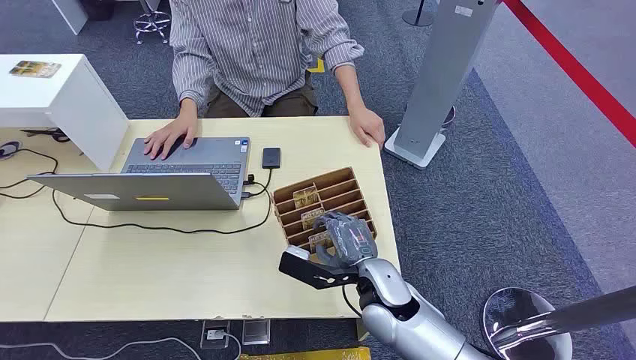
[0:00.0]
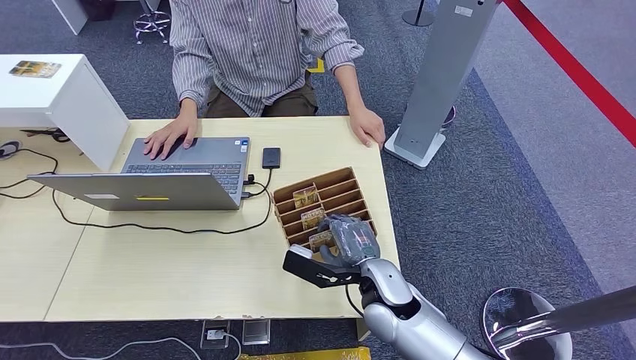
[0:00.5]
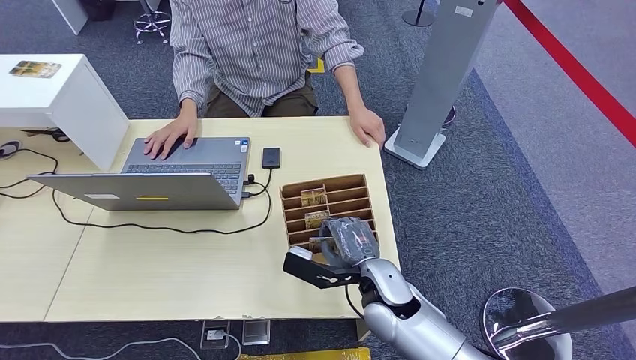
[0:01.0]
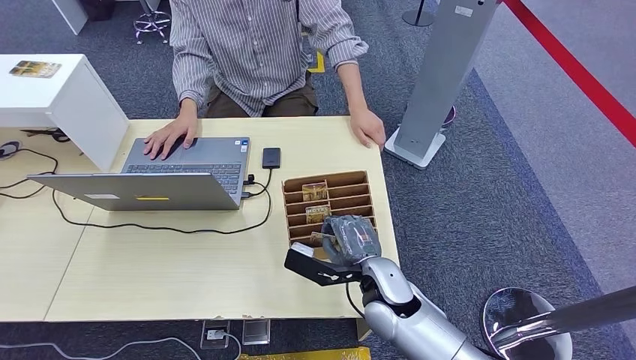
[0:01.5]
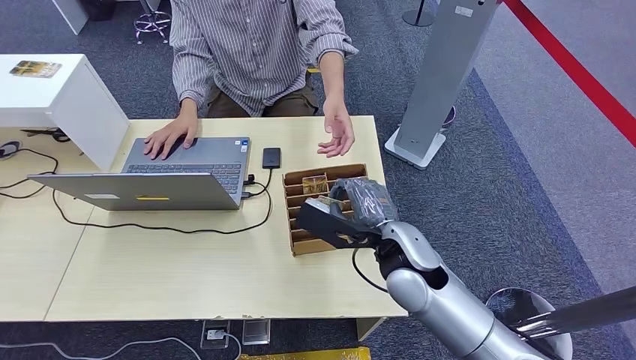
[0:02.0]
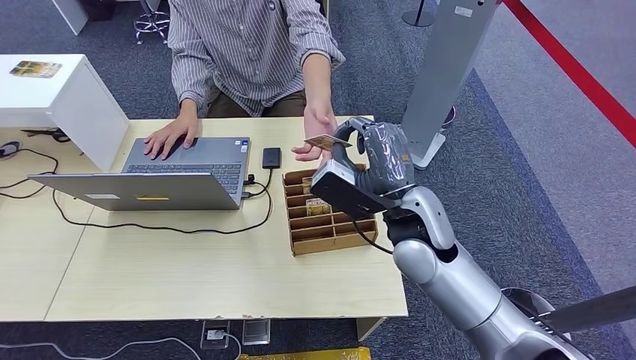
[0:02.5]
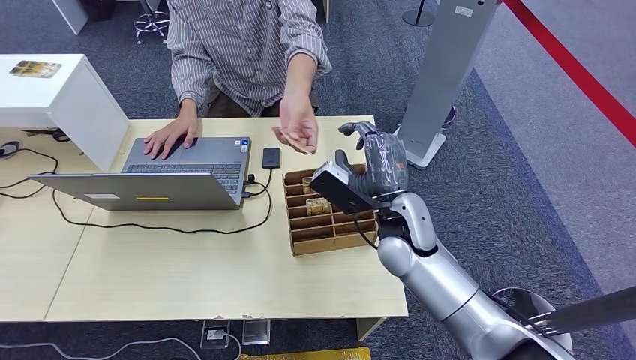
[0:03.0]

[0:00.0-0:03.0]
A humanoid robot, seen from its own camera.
Step, 0:00.0 to 0:02.0: Pick up the key card from the card box.
Step, 0:02.5 to 0:03.0: Hand the key card to the target.
0:01.5 to 0:03.0: The right hand travels upward and forward by approximately 10 cm.
